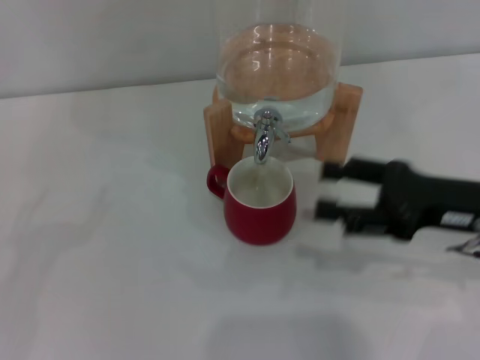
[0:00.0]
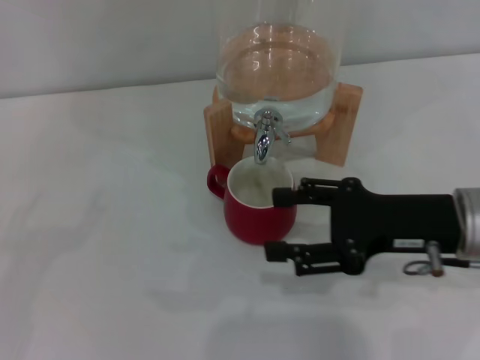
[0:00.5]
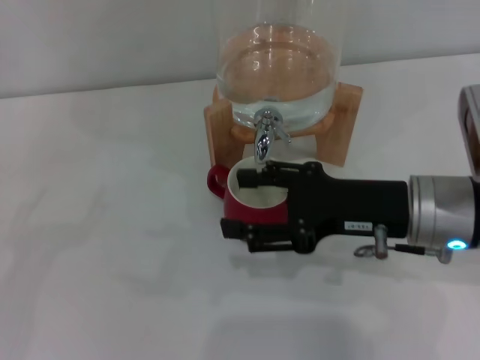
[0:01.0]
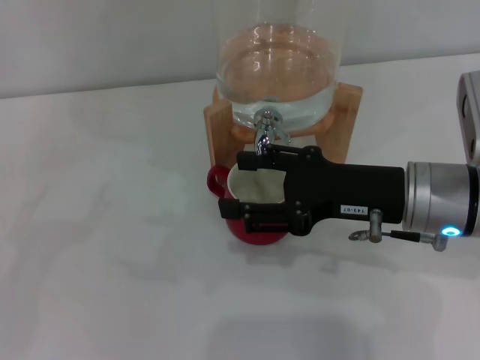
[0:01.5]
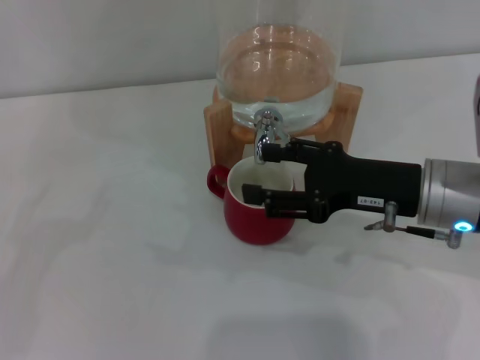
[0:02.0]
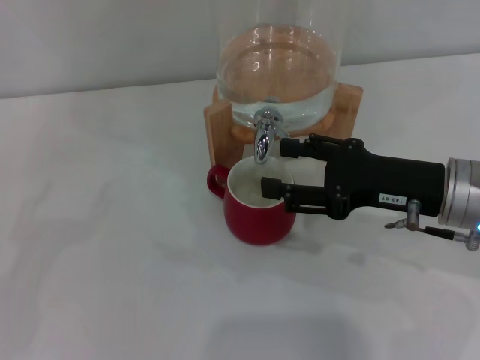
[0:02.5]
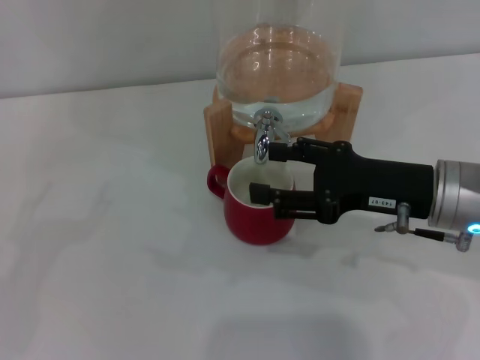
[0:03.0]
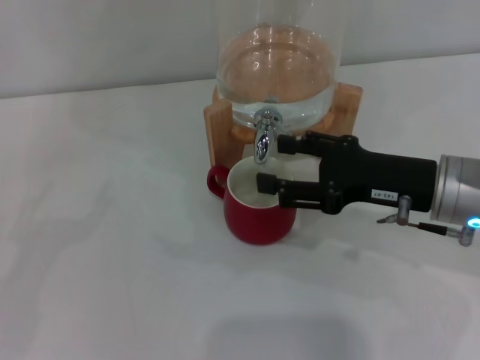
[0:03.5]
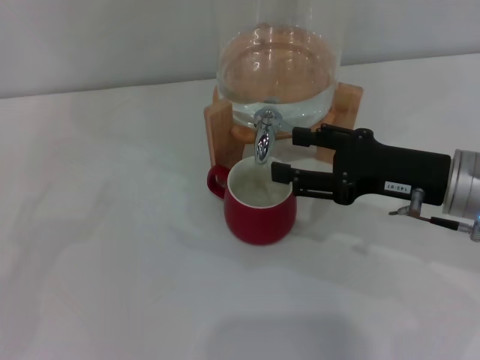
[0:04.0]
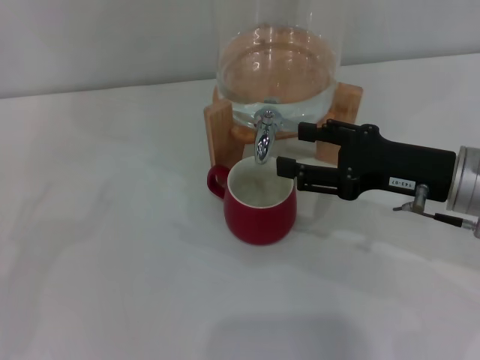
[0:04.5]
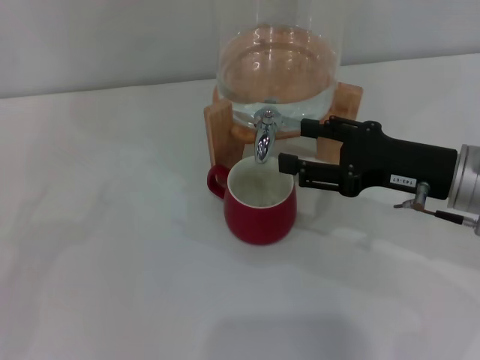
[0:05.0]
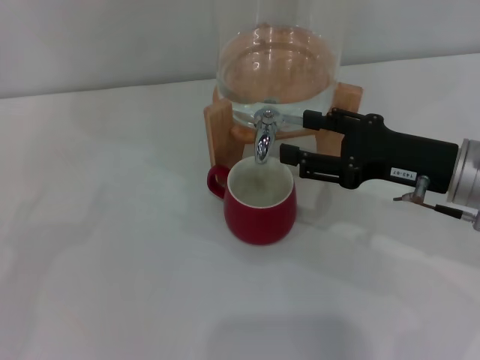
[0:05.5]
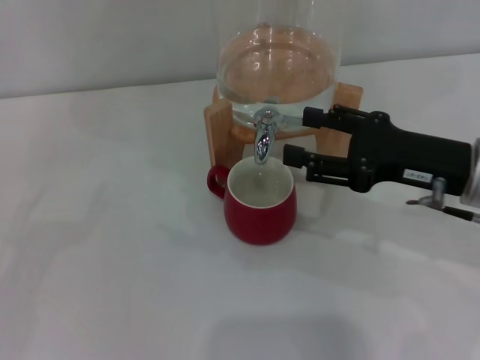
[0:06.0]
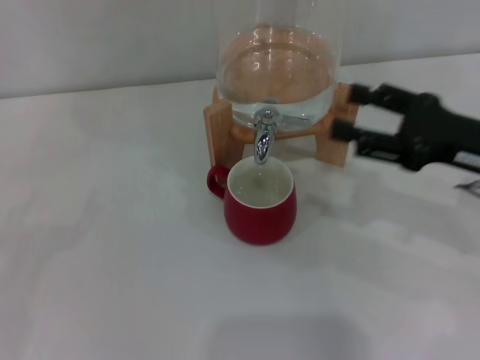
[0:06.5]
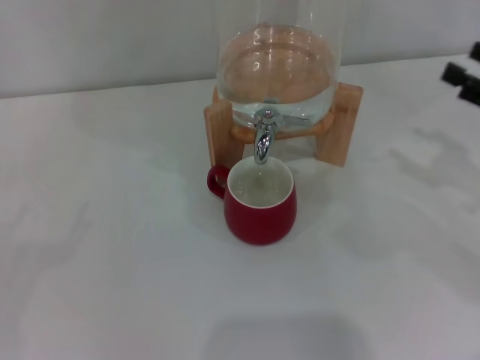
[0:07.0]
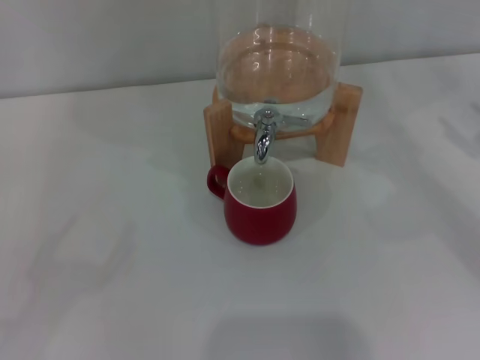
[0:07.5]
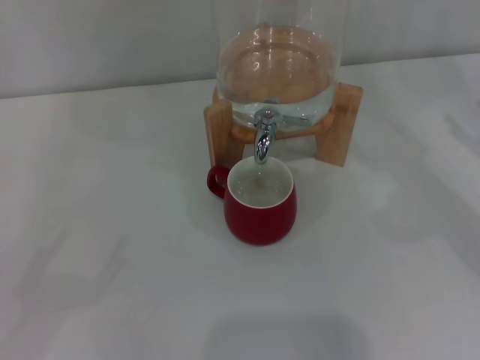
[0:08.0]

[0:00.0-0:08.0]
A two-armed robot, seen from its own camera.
Task of the whole recording: the left gripper pick up the red cup and place it horizontally under the faucet, the right gripper turn on the faucet to fill the cup, and then turn off the faucet.
Step, 0:00.0 to 0:06.0: Close the dispenser valve with the right gripper.
0:00.0 to 0:02.0: The right gripper heads to the left, covering about 5 cm.
0:02.0 to 0:06.0: The grippers stay close to where they were, moving slightly.
0:06.0 to 0:08.0: The right gripper shifts about 15 cm to the right, while the left gripper heads backward, covering some 5 cm.
